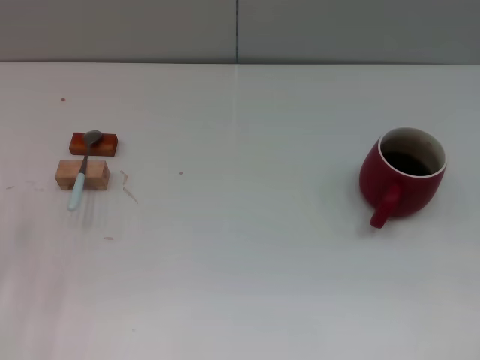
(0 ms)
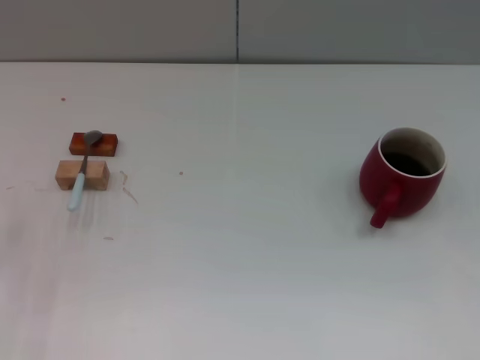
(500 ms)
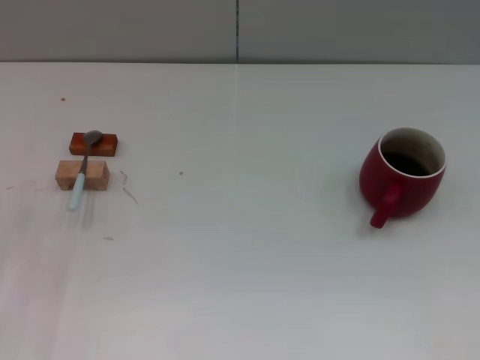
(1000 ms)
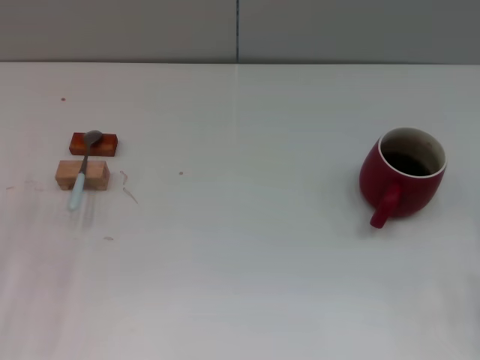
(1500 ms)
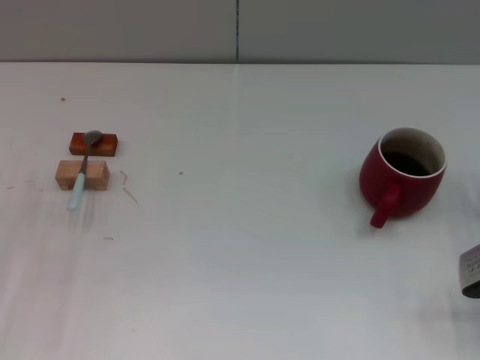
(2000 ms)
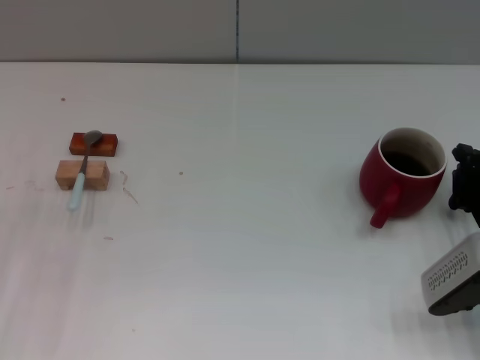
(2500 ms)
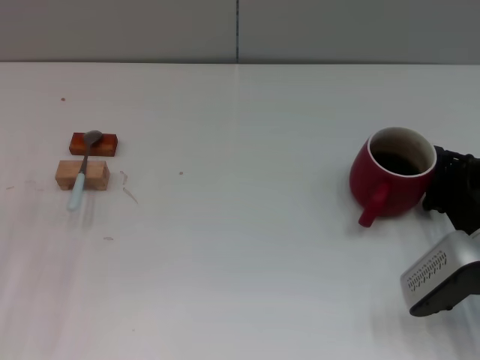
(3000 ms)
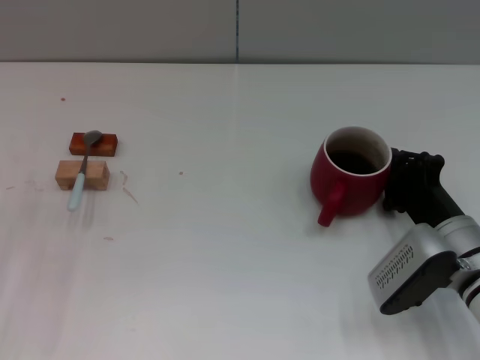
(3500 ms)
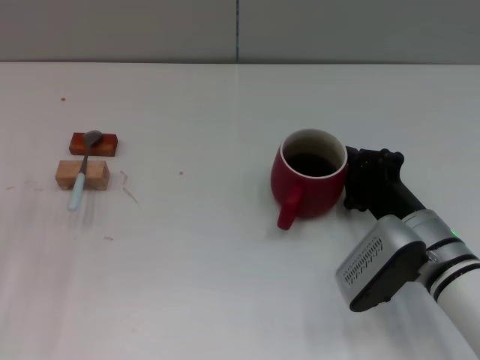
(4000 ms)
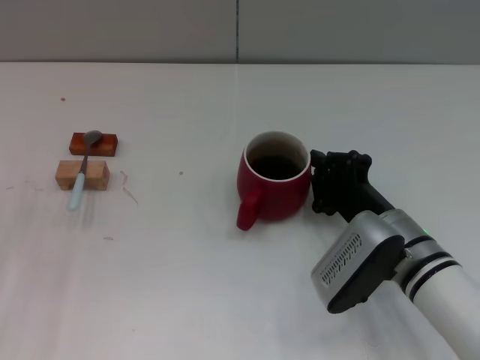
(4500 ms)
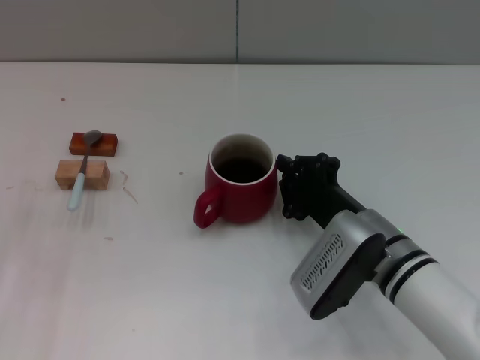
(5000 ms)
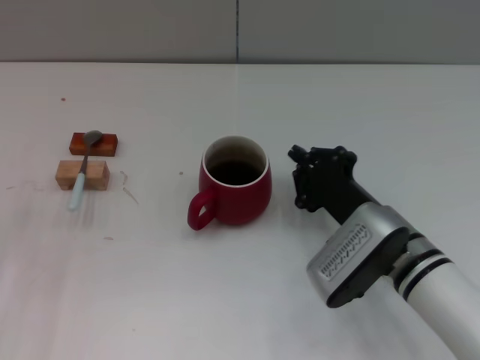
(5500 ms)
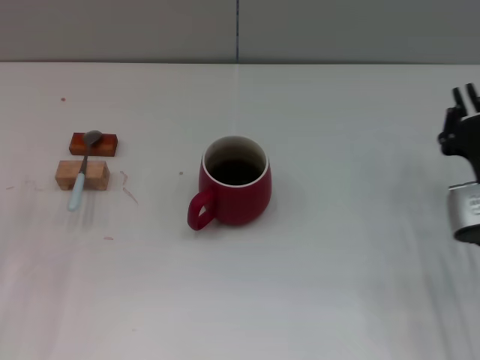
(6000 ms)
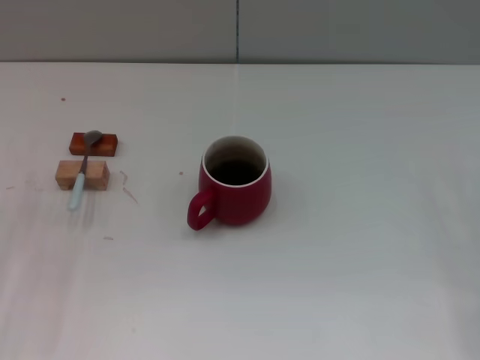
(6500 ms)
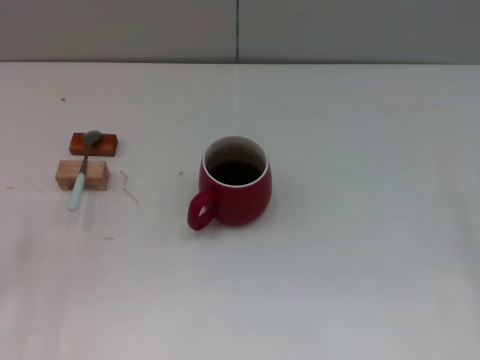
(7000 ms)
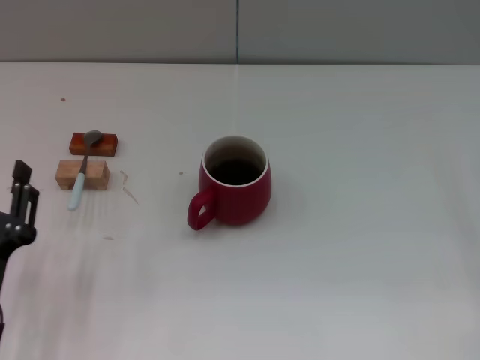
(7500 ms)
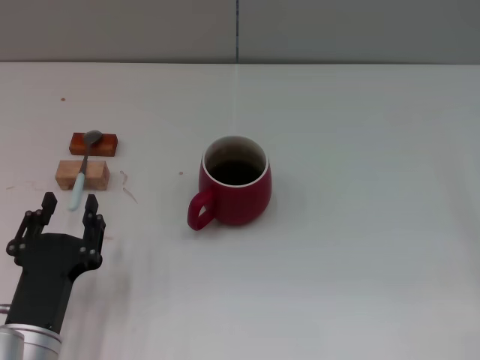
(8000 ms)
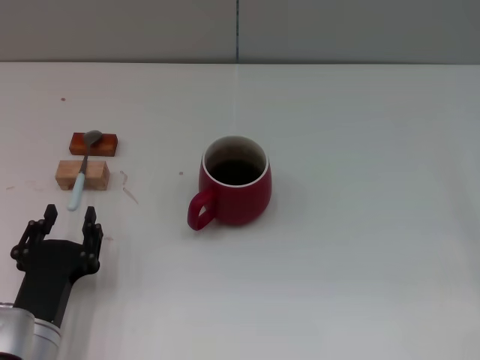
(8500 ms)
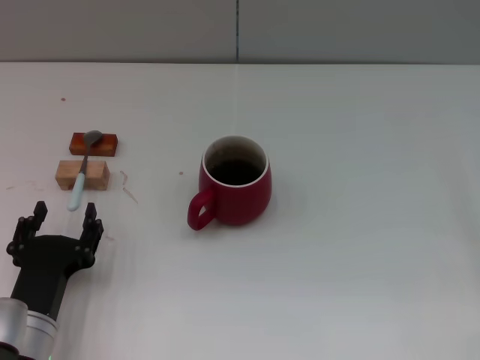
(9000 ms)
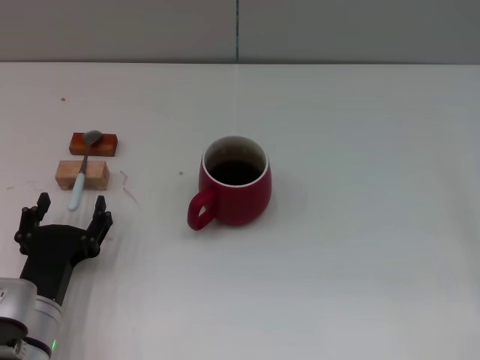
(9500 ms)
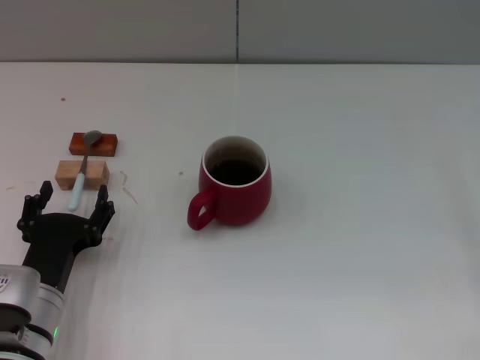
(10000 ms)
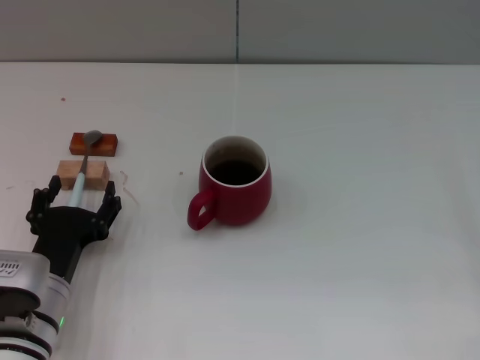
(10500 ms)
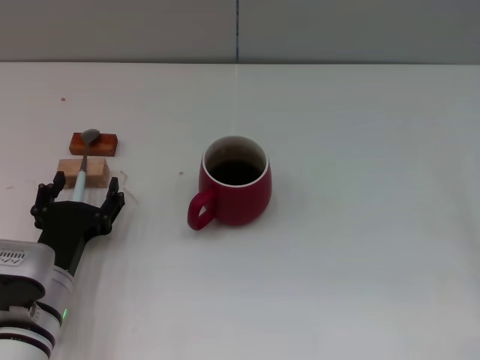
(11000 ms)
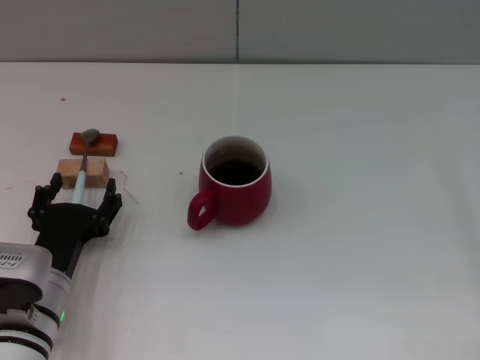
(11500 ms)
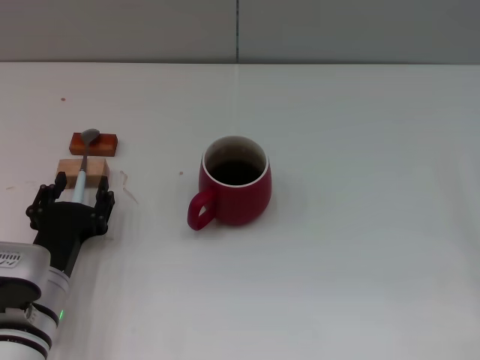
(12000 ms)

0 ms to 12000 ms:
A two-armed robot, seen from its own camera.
Task of the whole recording: Move the red cup to the center, lift the blue spoon, stir it three times in the cup, and put the spoon into the cup.
Step, 0 ms to 5500 ms: Move the cup with coffee to the center of view with the right gripper.
0 ms to 2000 ms: The right gripper travels to the left and downward by approximately 10 cm, and closes its fingers.
2000 ms to 4000 ms: The right gripper is displaced to the left by about 10 cm.
4000 ms to 6000 ms: The right gripper goes approximately 5 cm to the right.
6000 ms to 8000 ms: The left gripper moves to the right and backward, approximately 15 cm; the right gripper goes about 15 cm to the right and upward, and opens up.
8000 ms to 10000 ms: The left gripper changes place by some 5 cm, and opens up.
10000 ms to 12000 ms: There are only small adjustments of the grippers.

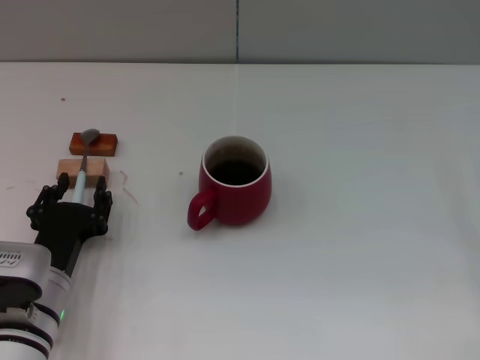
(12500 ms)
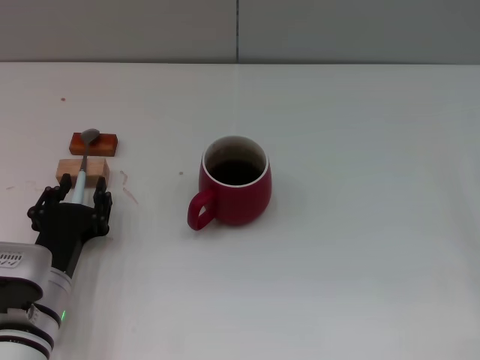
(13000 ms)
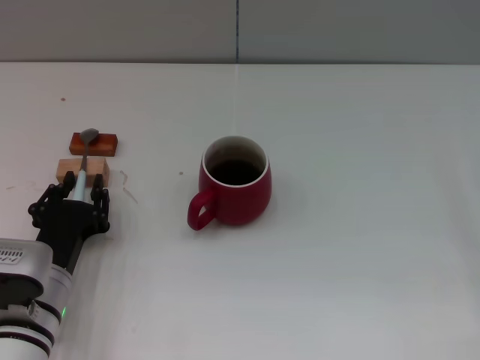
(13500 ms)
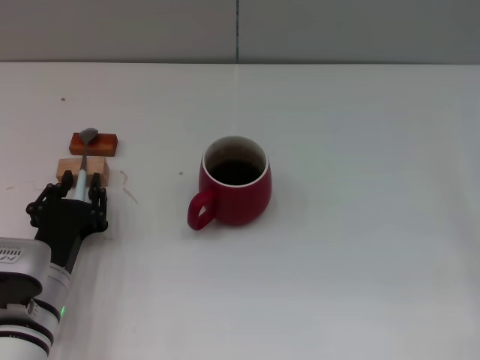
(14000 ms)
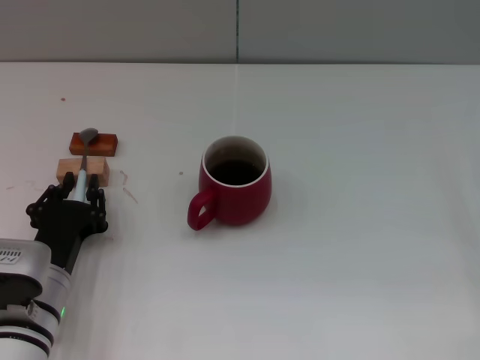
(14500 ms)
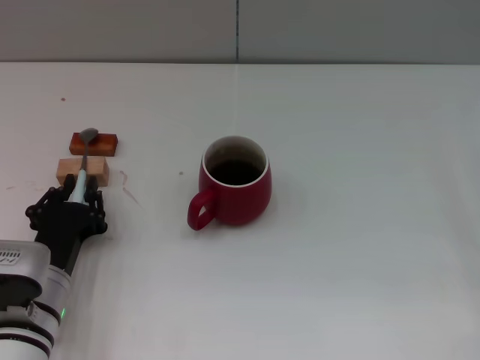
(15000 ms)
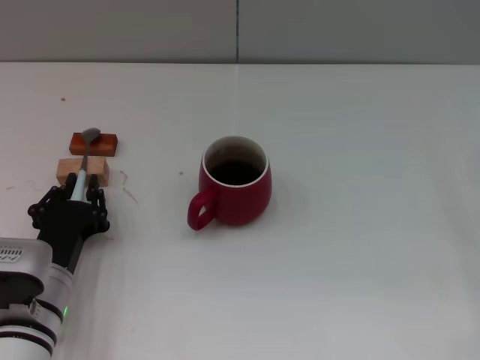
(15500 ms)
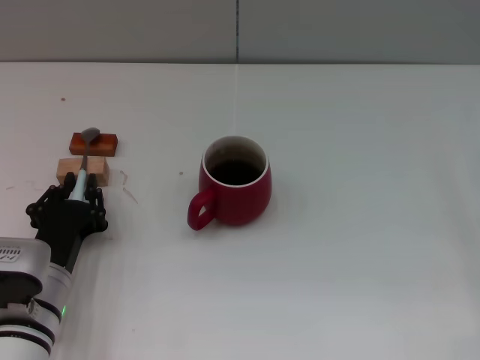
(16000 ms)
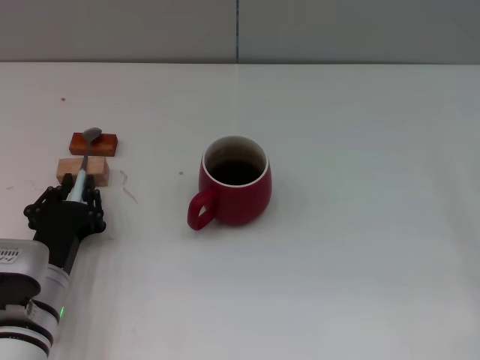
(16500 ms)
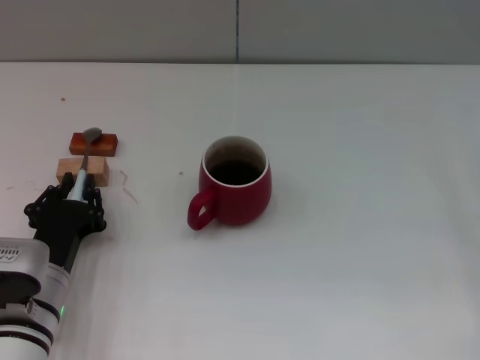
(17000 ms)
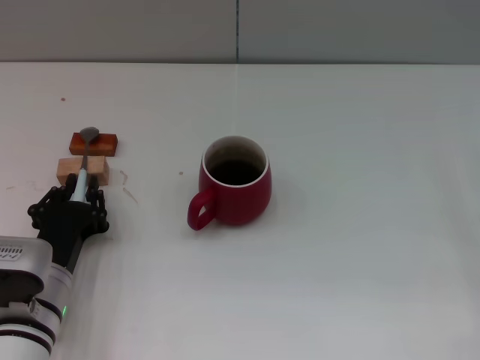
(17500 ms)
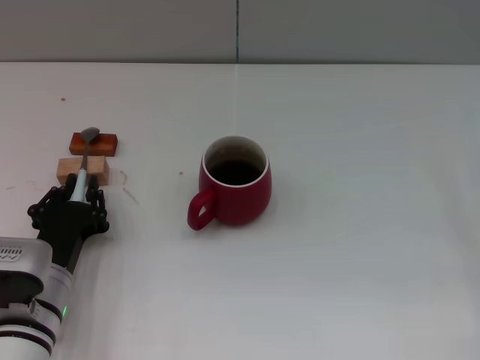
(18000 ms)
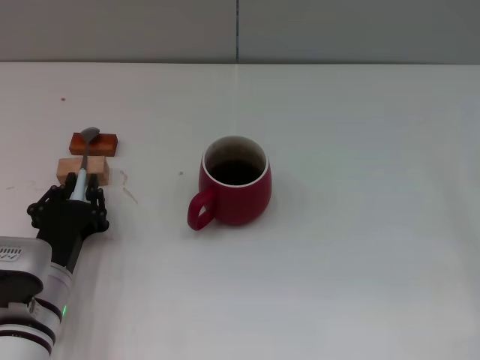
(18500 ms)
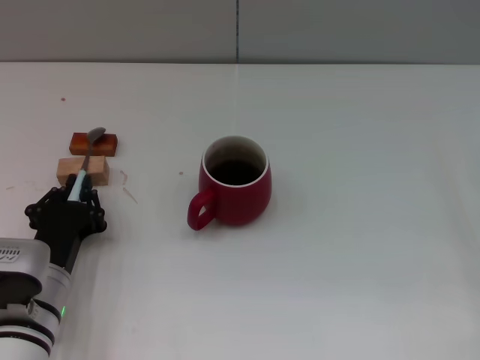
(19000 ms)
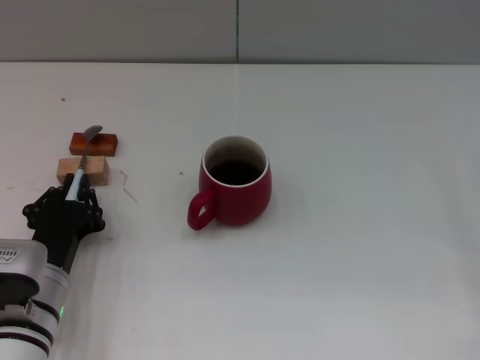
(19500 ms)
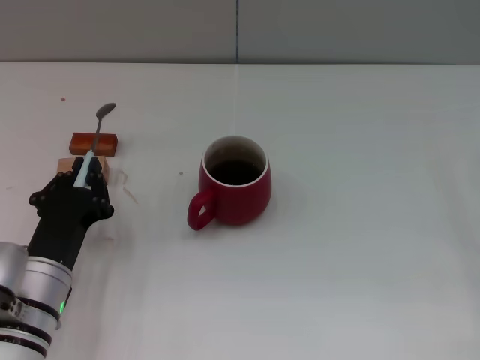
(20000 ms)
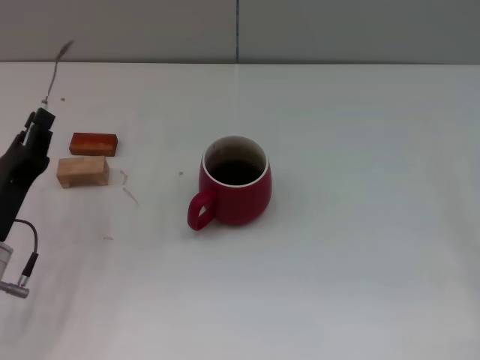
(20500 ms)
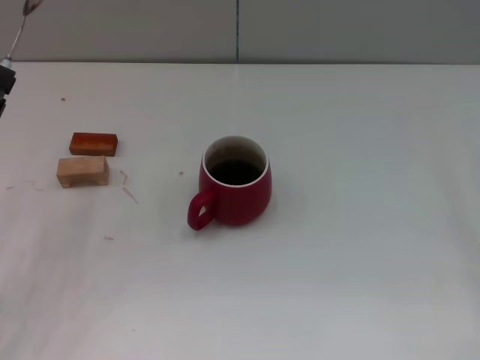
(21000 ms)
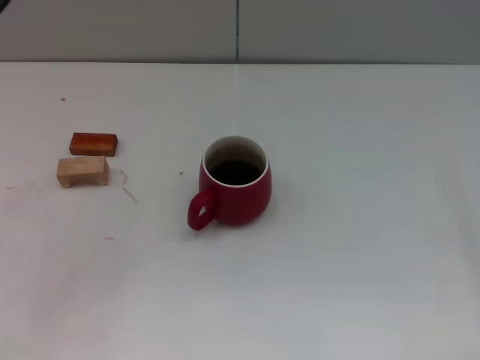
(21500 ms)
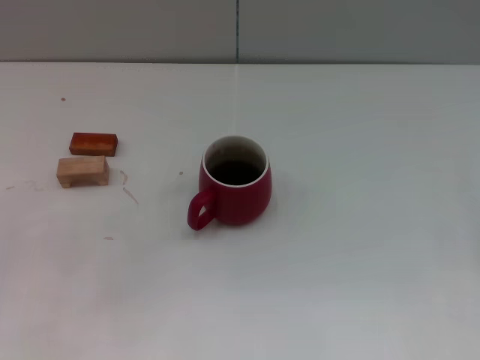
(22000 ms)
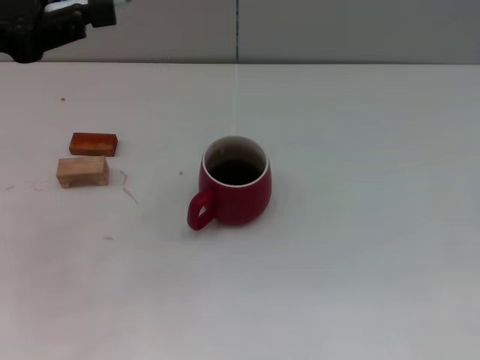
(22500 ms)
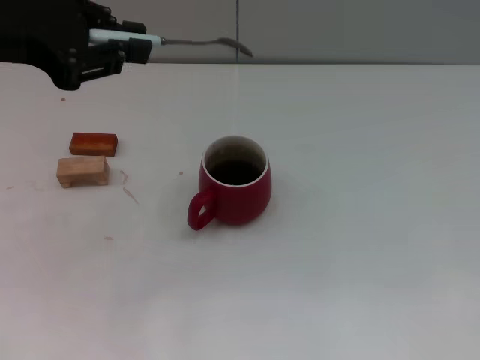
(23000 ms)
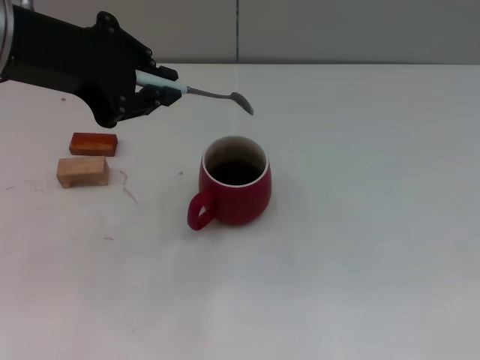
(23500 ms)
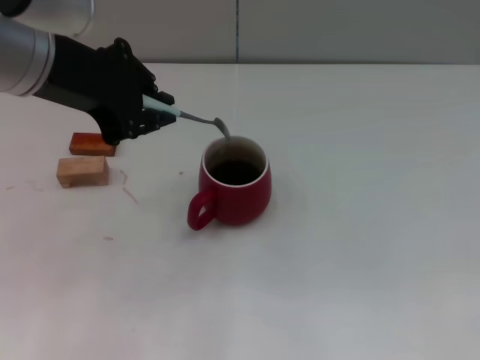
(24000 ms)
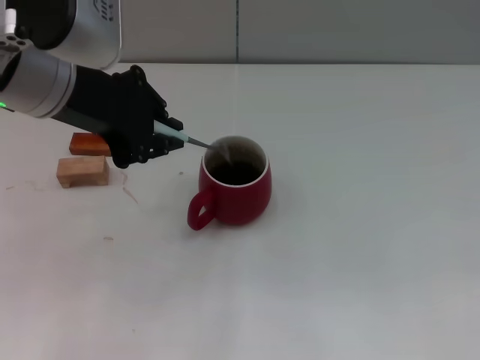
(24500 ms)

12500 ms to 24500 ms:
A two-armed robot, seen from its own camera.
Task of the whole recording: Move the red cup to the center, lift the blue spoon, stir it three times in the cup, and put the spoon into the cup.
Step, 12500 ms to 20500 ms: Pick up the spoon with the left gripper.
12500 ms to 14500 ms: The left gripper closes.
14500 ms to 18500 ms: The two grippers keep their place.
18500 ms to 20500 ms: The left gripper goes about 5 cm to the left.
20500 ms to 22500 ms: The left gripper shifts some 25 cm upward and forward.
22500 ms to 24500 ms: The left gripper shifts roughly 10 cm to the right.

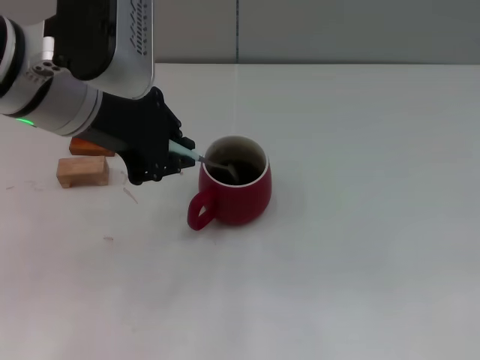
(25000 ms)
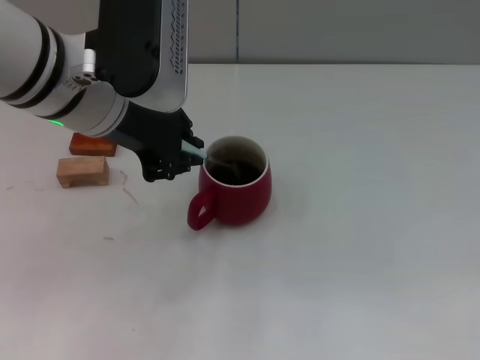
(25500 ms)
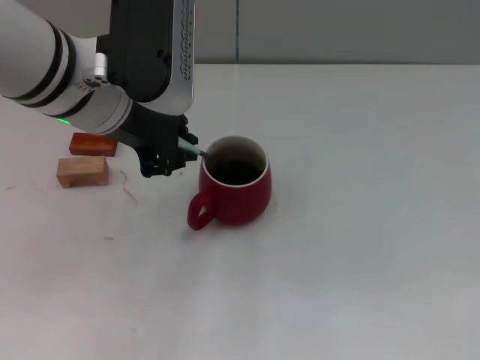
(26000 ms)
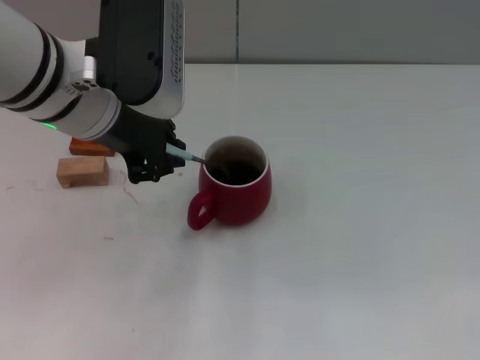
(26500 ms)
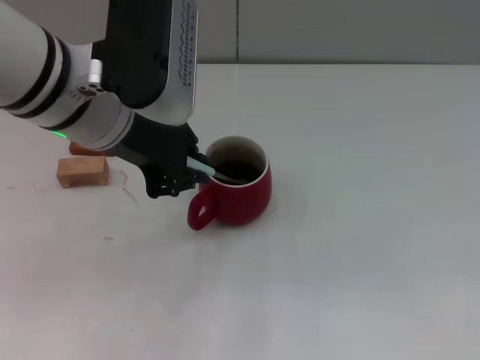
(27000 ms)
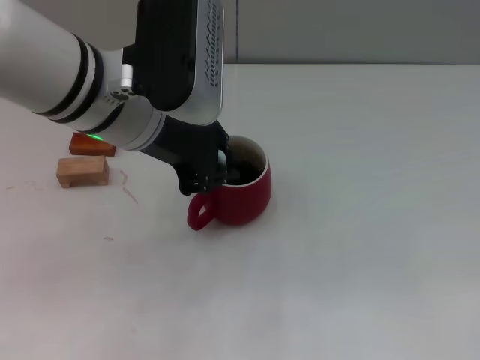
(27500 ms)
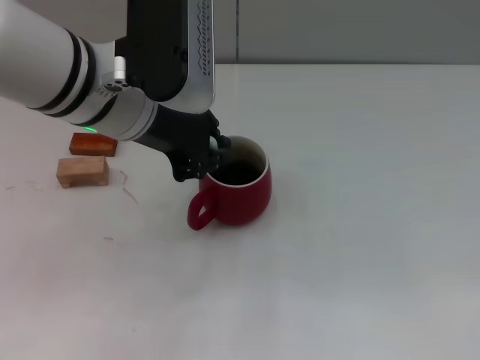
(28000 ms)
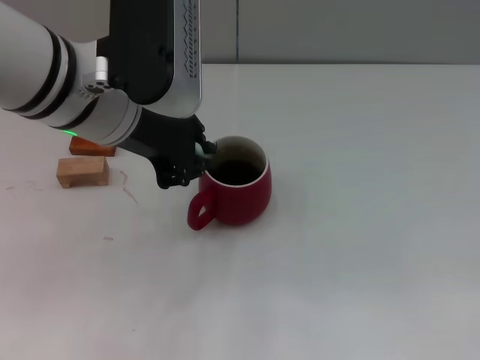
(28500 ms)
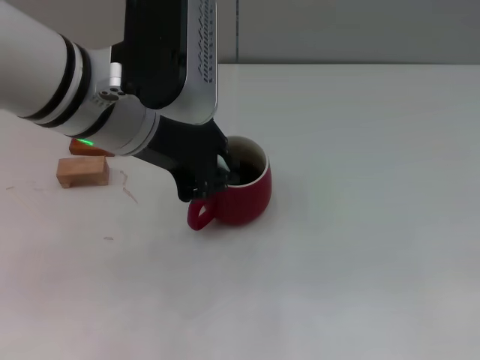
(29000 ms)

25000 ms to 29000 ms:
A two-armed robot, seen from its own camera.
Task of the whole recording: Move the red cup to the center, lift the blue spoon, stir it three times in the cup, and put the spoon into the cup.
25000 ms to 29000 ms: There are only small adjustments of the grippers.
